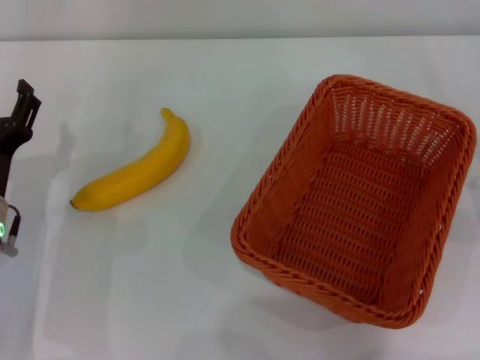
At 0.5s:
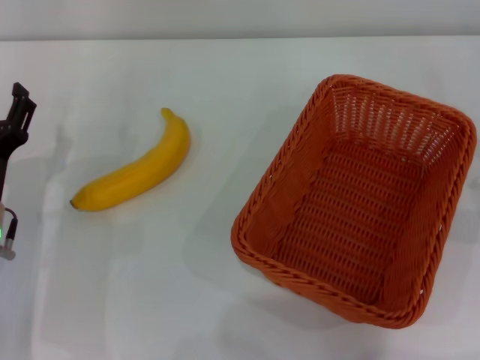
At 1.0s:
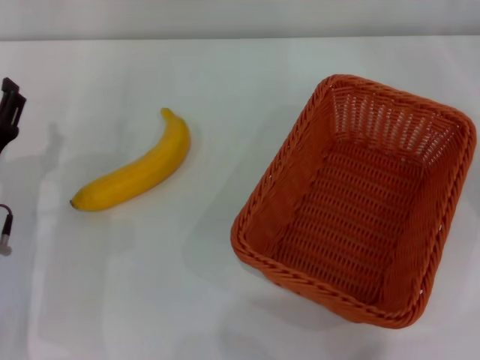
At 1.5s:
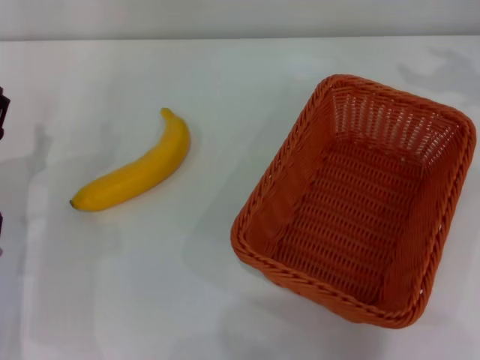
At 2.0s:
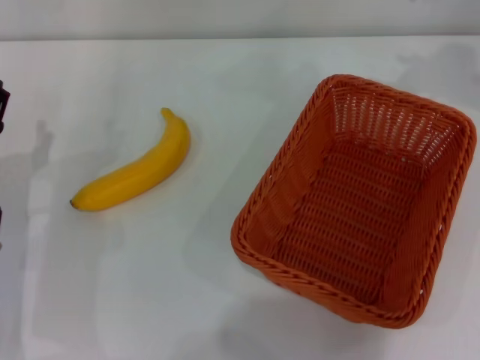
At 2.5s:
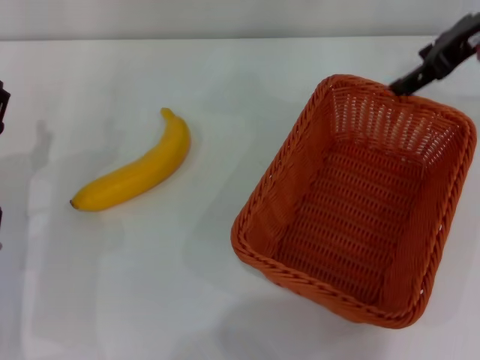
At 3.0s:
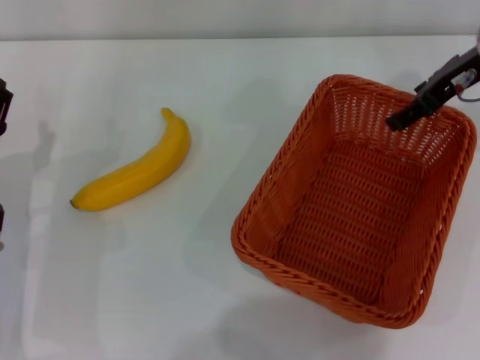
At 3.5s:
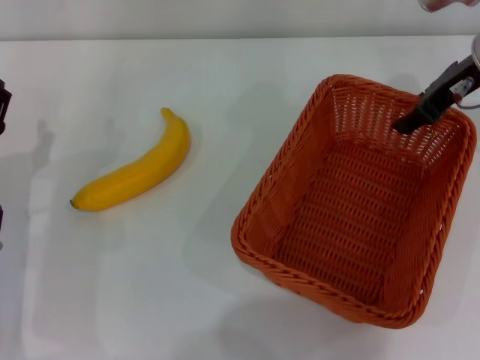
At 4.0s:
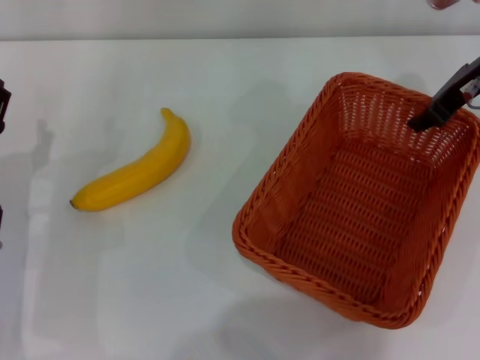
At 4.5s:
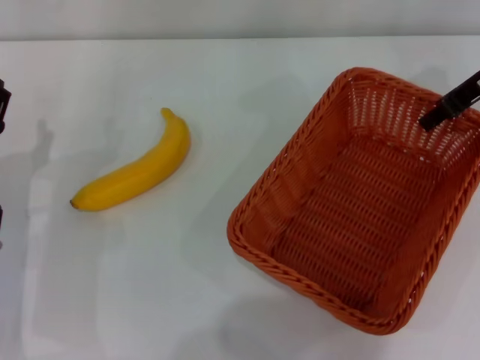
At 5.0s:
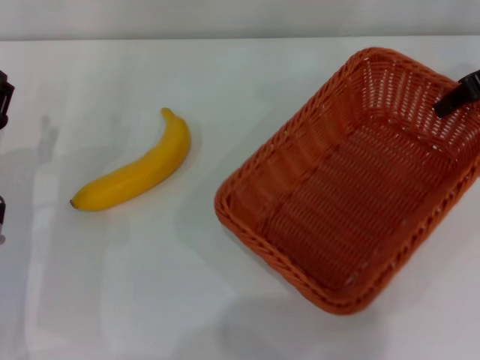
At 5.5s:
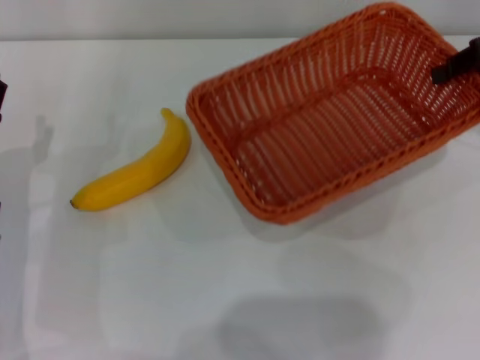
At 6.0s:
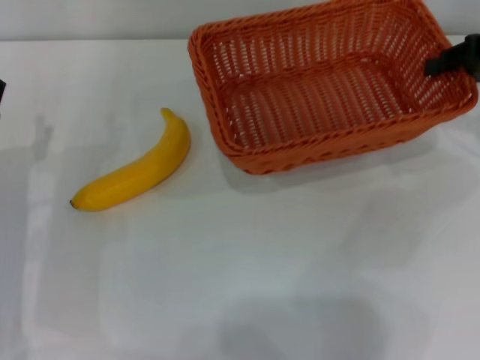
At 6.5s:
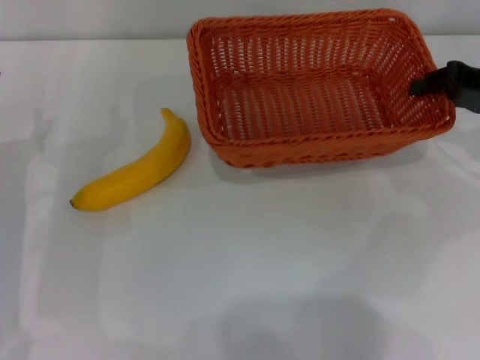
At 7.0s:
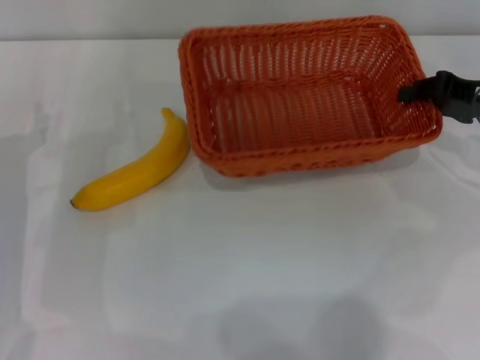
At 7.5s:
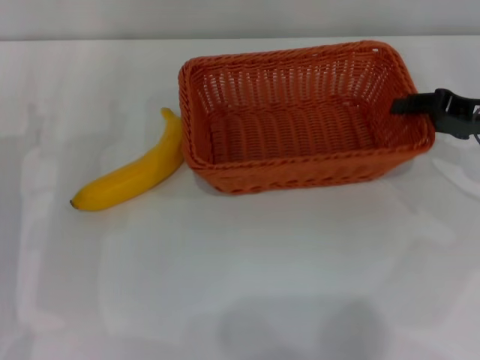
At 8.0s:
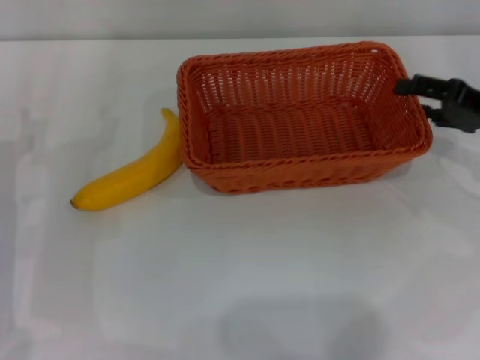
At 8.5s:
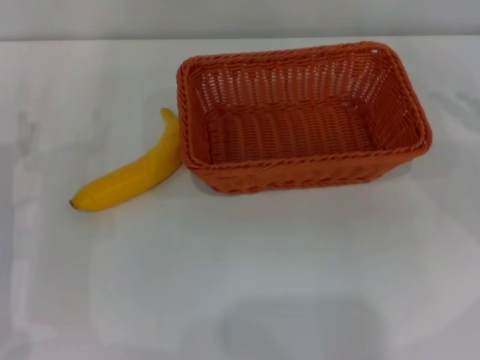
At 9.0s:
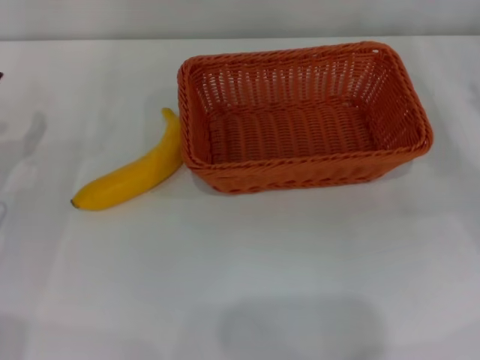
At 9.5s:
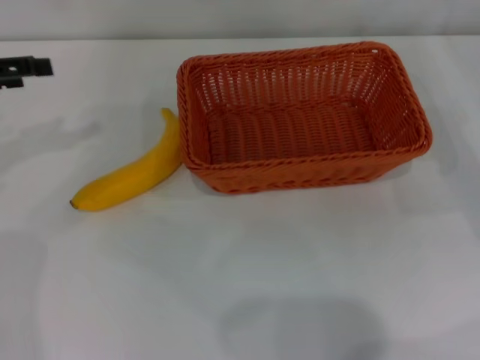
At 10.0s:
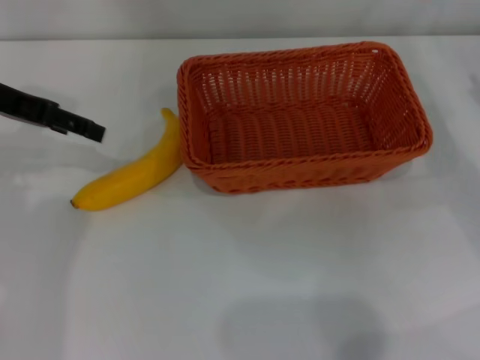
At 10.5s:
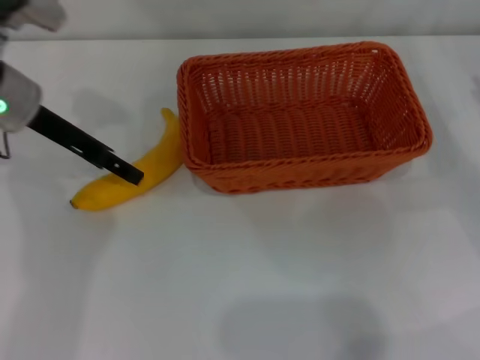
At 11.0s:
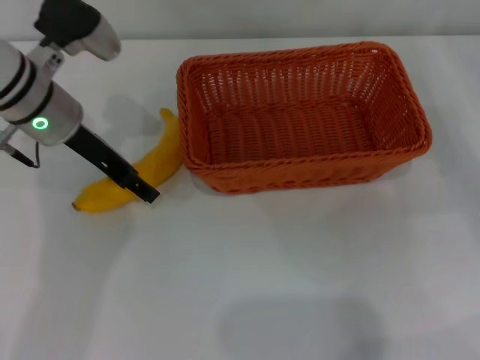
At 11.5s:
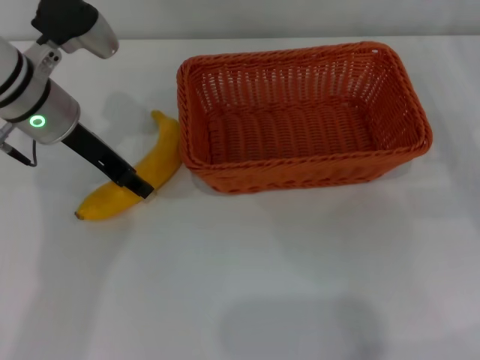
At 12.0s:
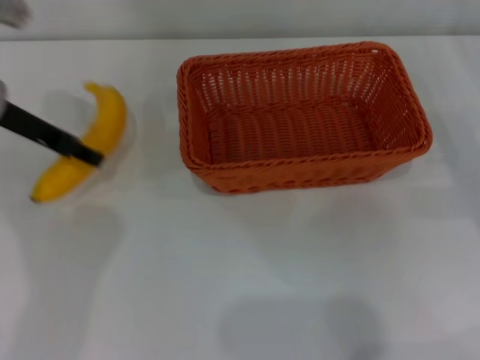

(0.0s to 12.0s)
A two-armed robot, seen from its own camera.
Step, 0.0s - 5.0s: Pick up the light basket with the right gripper.
Step, 5.5s - 7.5s: Place the light basket in the center of view with the right gripper.
Step, 8.0s - 11.5s: Pick up the banana with the left gripper.
2.0s - 4.0s: The right gripper travels downward and to the left by approximately 10 cm, and closes.
4.0s - 6.0s: The right gripper is displaced to the right by about 10 cm.
6.0s - 8.0s: The right gripper shifts about 5 cm downward, and opens.
8.0s - 10.0s: The left gripper travels upward and forward by some 20 cm. Meanwhile the right gripper moves approximately 5 cm.
10.0s - 12.0s: The left gripper reaches approximately 10 cm to the right, then returns, and closes its fingers.

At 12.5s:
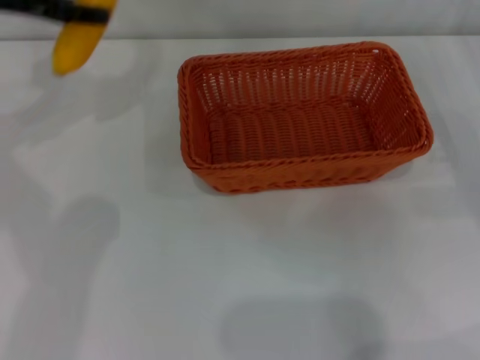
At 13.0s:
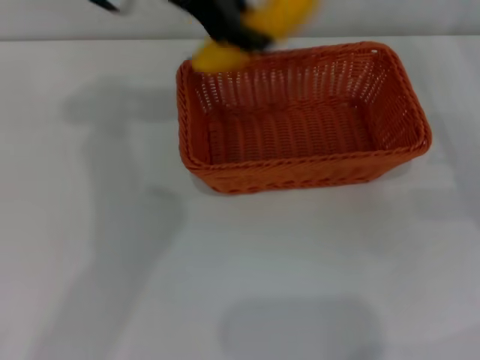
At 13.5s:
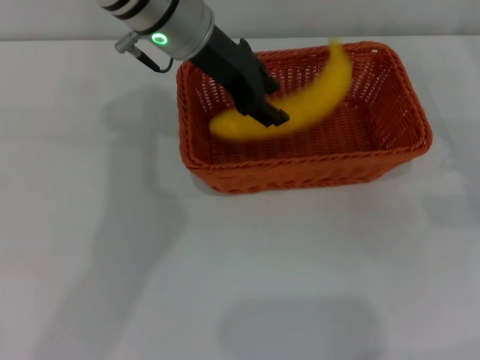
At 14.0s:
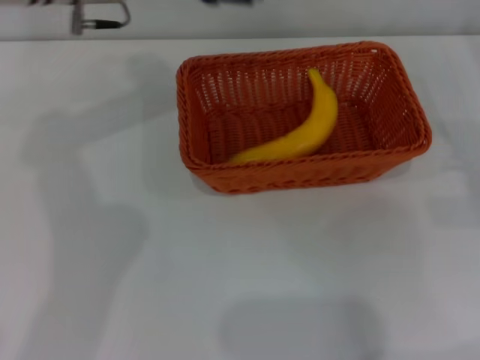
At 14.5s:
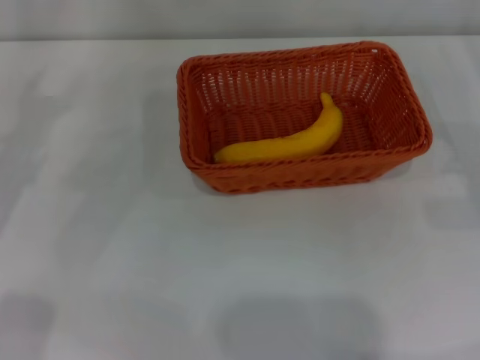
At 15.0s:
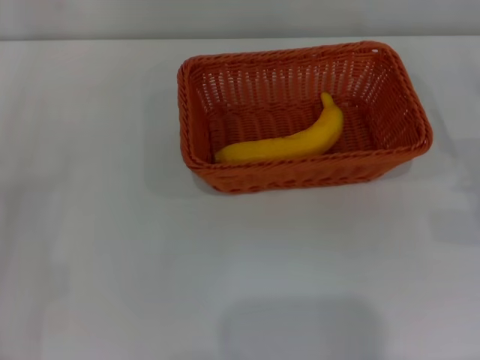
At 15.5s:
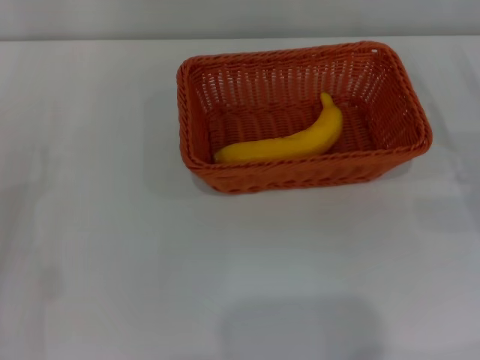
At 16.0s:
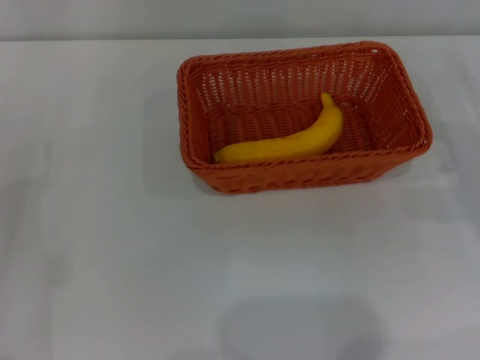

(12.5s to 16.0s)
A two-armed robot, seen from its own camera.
Step, 12.5s - 13.5s: Place the banana into the light basket with the left gripper.
12.5s - 14.5s: The left gripper goes approximately 15 cm downward and backward, reaches about 20 cm to the right, then returns, and opens its fingers.

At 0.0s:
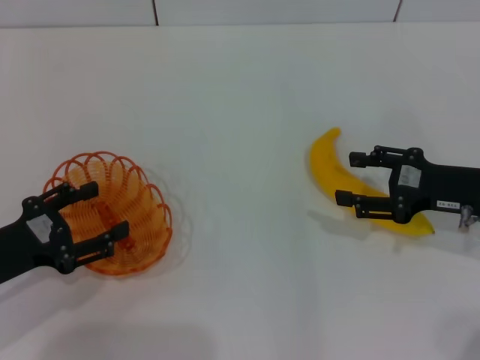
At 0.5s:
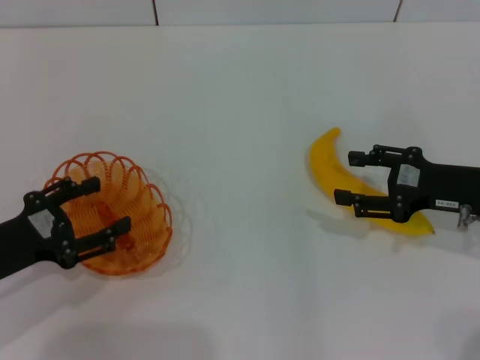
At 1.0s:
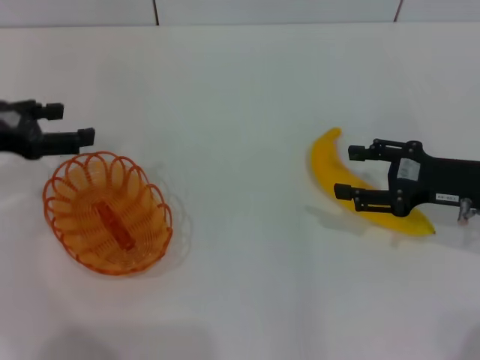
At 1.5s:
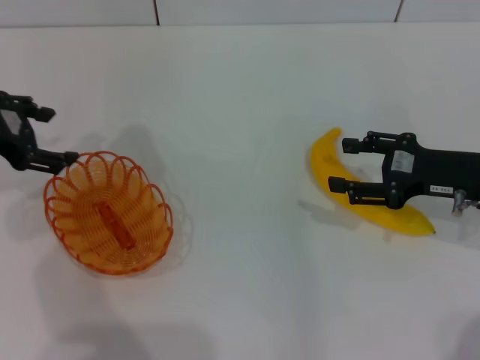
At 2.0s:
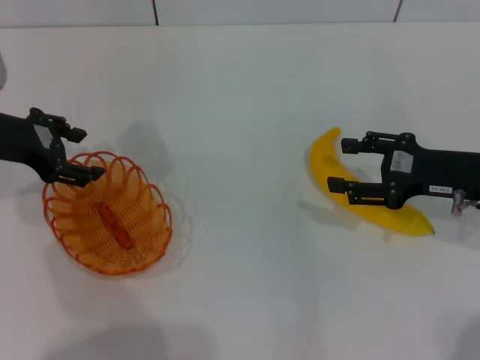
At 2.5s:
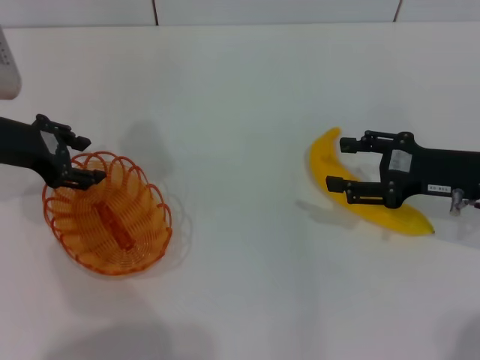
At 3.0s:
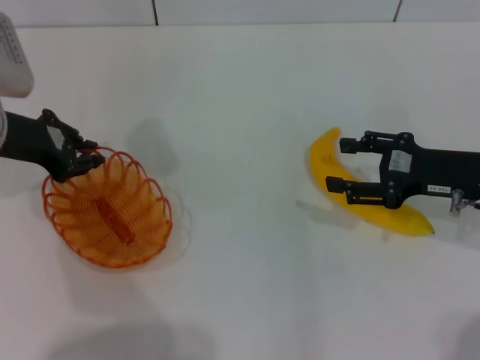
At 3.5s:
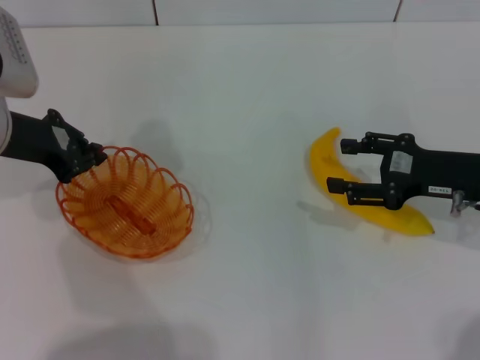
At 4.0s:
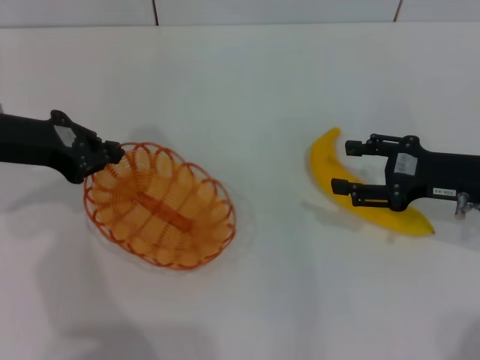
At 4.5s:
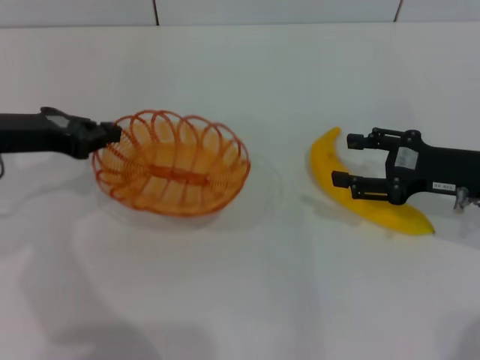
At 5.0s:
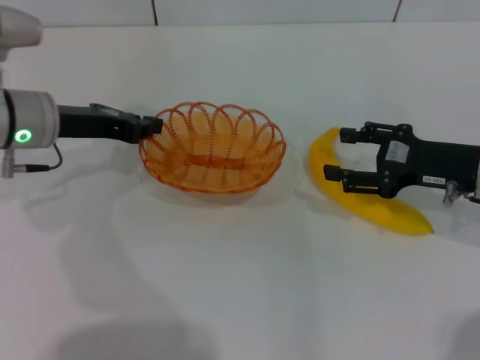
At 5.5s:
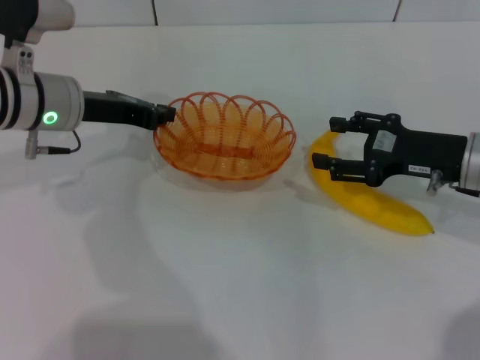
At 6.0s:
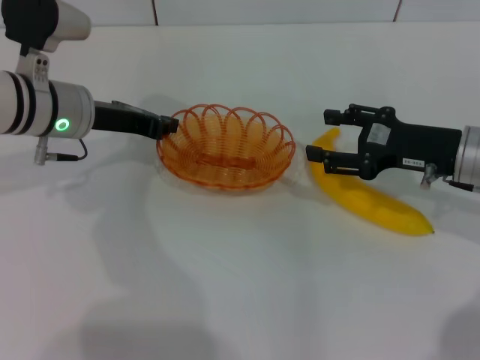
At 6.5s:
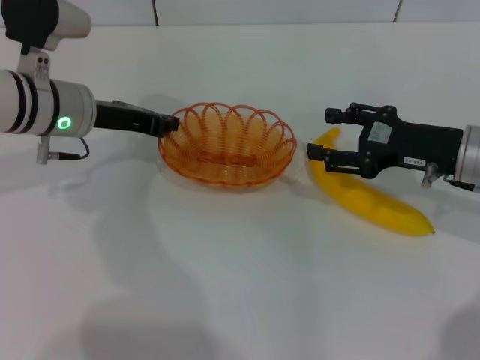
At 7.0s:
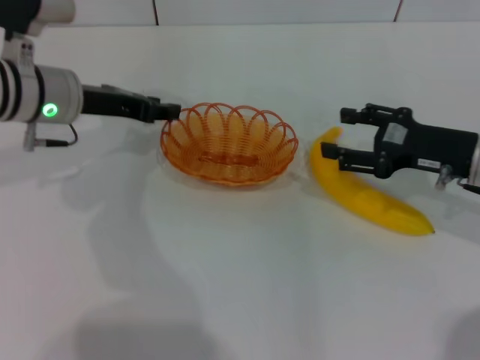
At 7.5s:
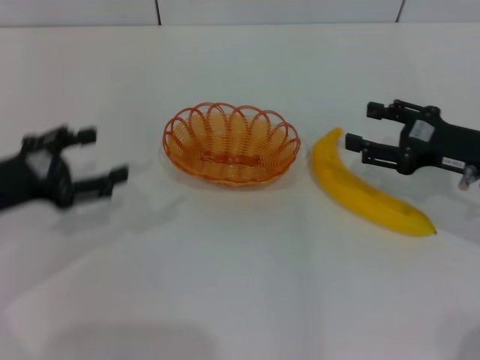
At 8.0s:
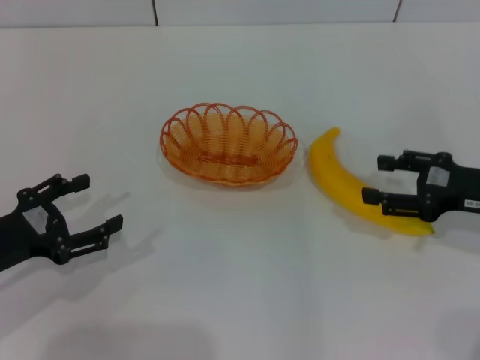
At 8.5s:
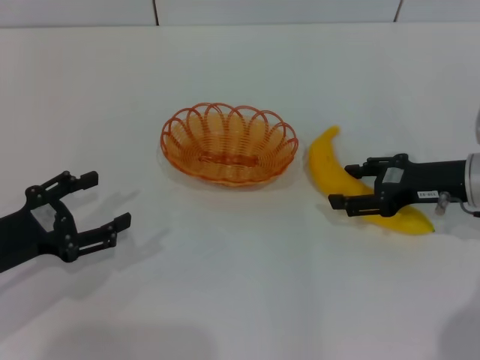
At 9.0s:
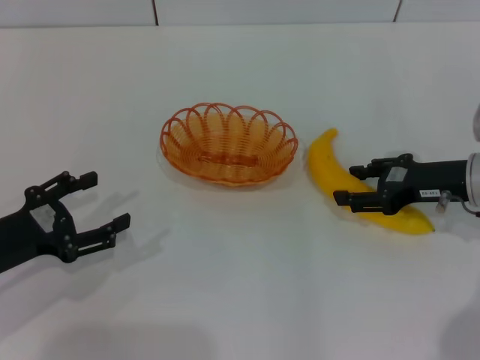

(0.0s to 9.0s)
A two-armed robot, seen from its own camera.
Step, 0.0s - 3.5s: Pick up the basket with the left gripper.
Step, 4.0s - 7.0s: Place the basket in the center of view with the left gripper.
0.0s - 2.0s: The left gripper moves forward and upward, about 15 cm.
2.0s - 4.5s: The left gripper closes.
4.5s - 7.0s: The left gripper shifts roughly 10 cm to the right and forward.
7.0s - 9.0s: The left gripper moves backward, to the left and downward, some 20 cm, and opens its fingers.

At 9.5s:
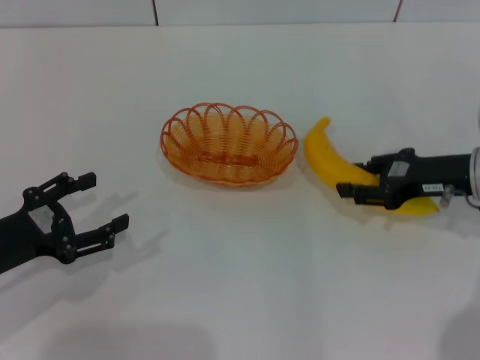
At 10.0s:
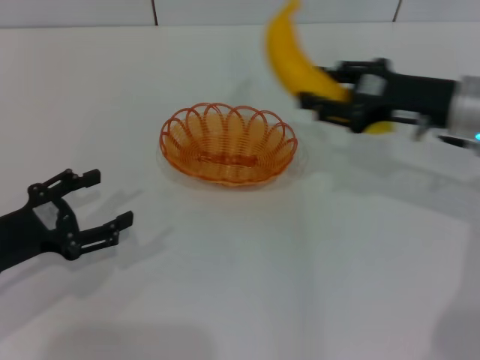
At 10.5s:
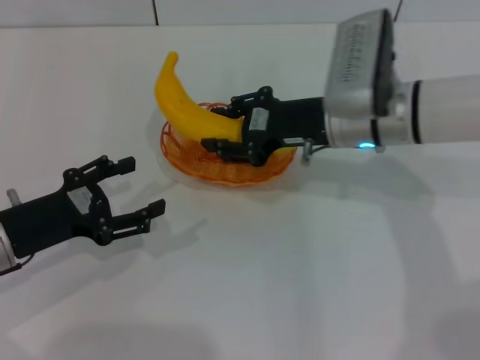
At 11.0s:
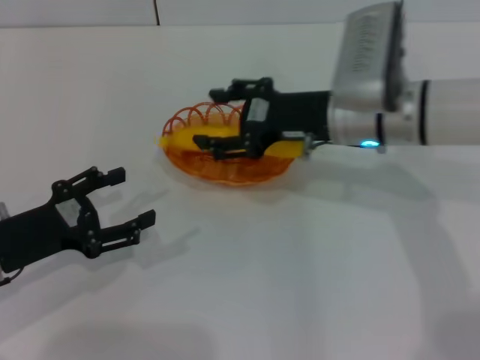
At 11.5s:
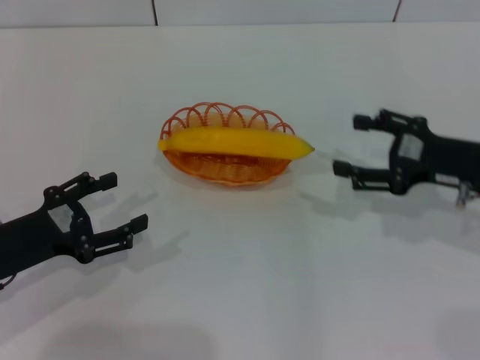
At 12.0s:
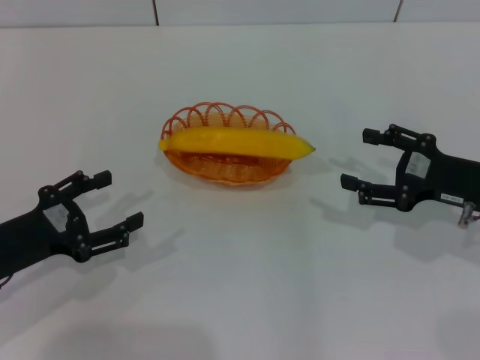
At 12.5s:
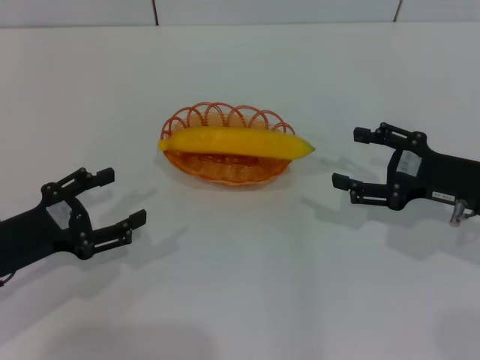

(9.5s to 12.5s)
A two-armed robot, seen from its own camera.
Step, 10.0s - 11.0s: Place the banana into the basket with the right gripper.
9.5s - 11.0s: The right gripper travels to the left by roughly 15 cm.
11.0s - 12.5s: The right gripper travels to the right and backward by approximately 15 cm, and opens its fingers.
